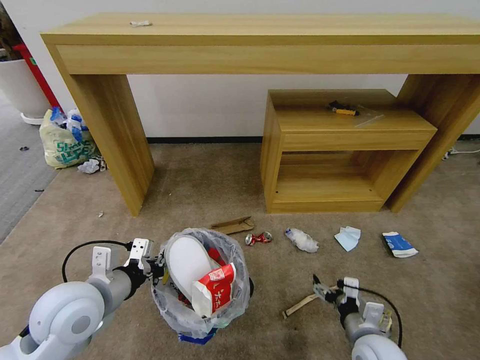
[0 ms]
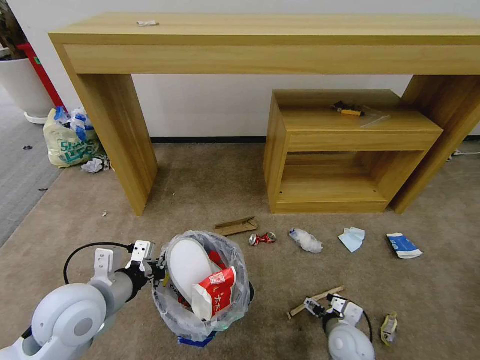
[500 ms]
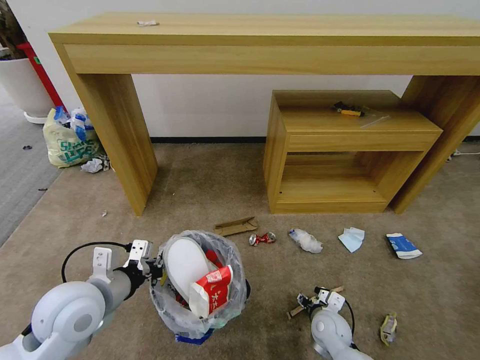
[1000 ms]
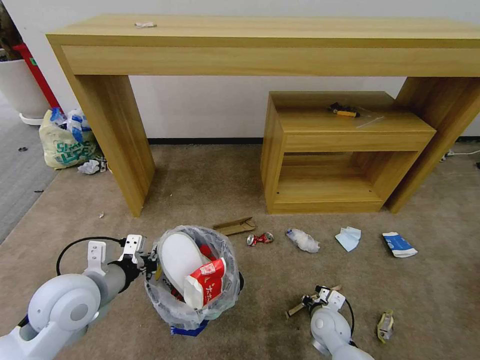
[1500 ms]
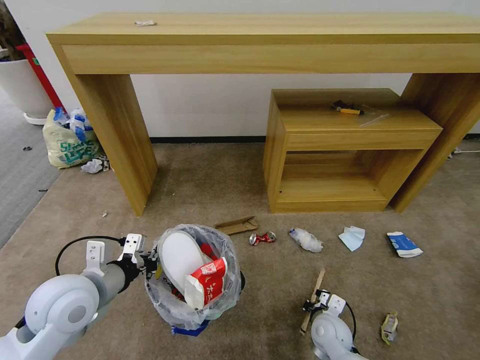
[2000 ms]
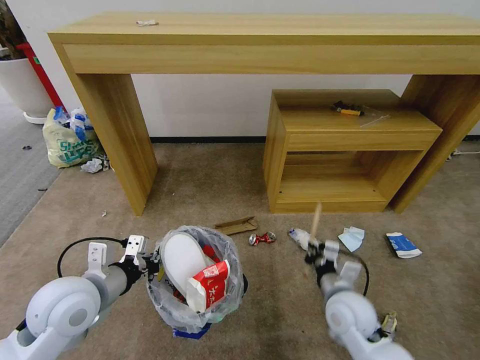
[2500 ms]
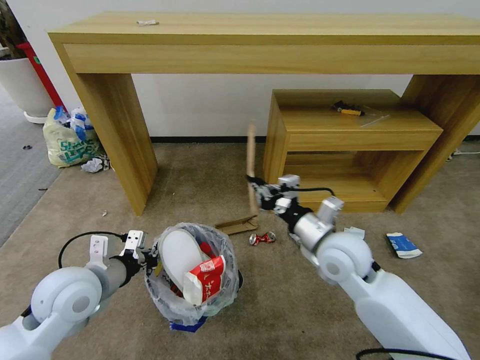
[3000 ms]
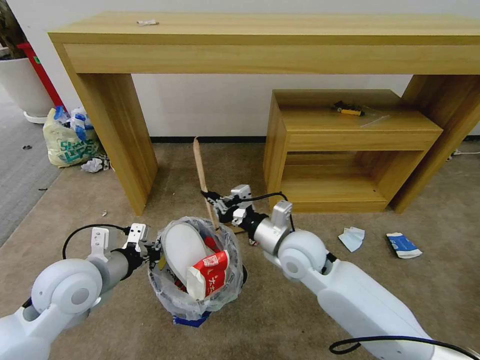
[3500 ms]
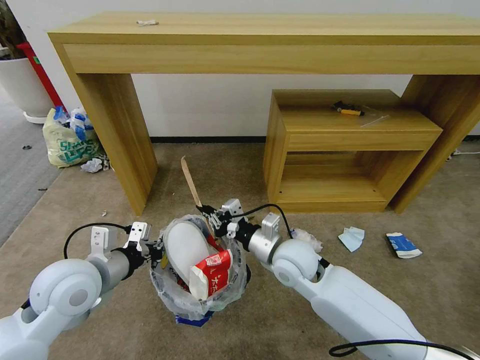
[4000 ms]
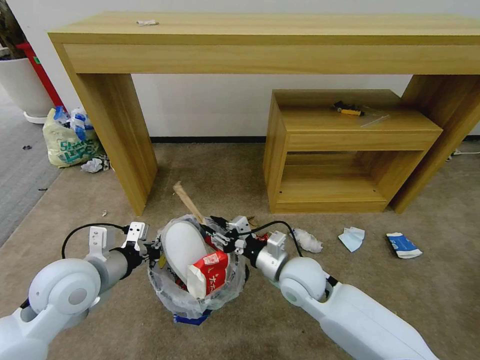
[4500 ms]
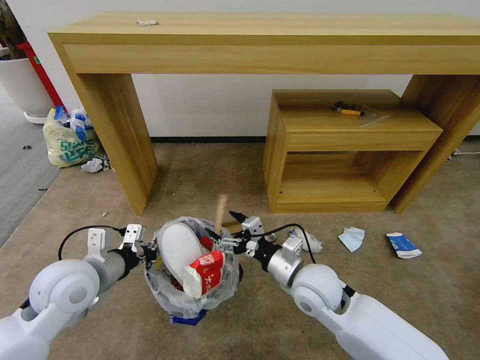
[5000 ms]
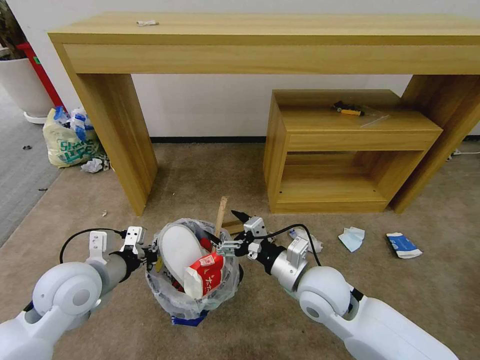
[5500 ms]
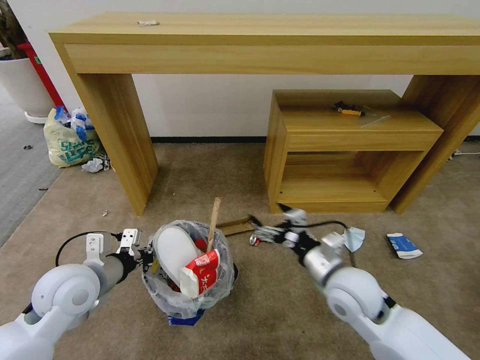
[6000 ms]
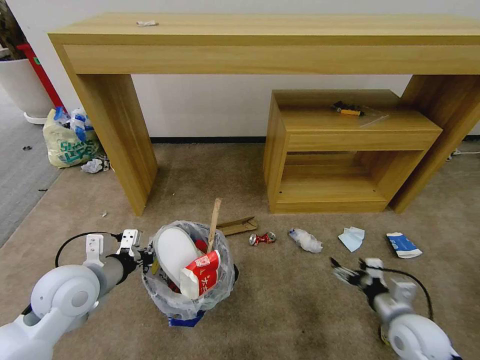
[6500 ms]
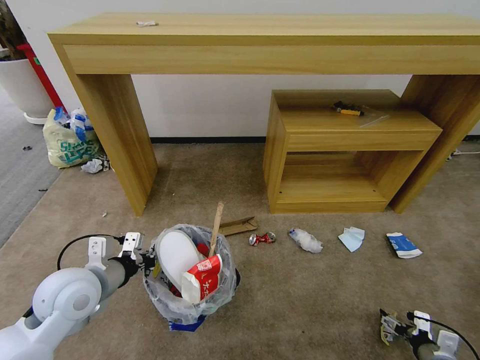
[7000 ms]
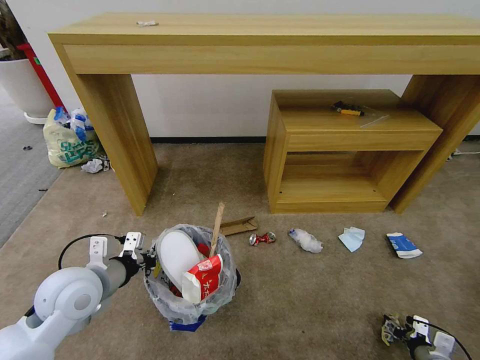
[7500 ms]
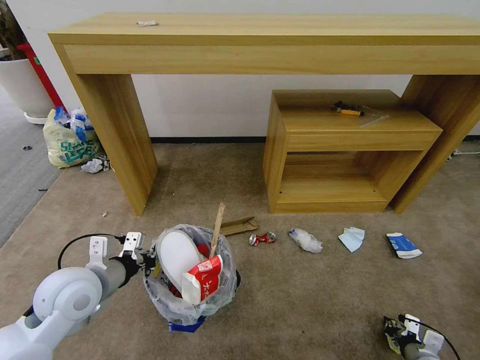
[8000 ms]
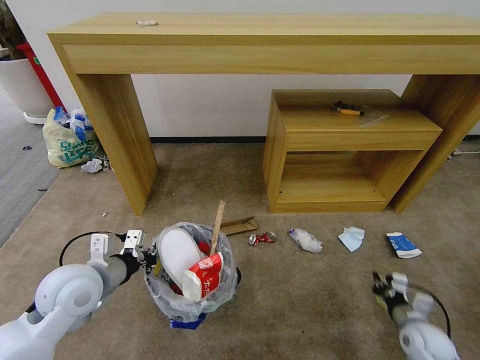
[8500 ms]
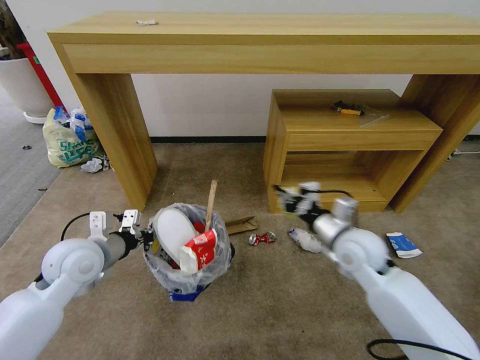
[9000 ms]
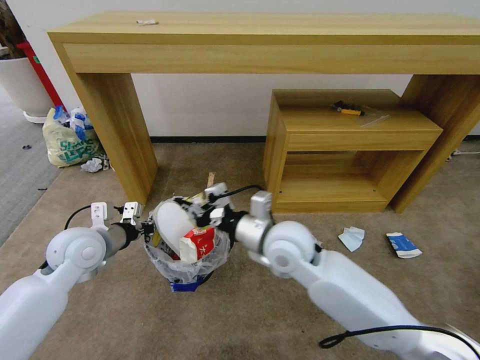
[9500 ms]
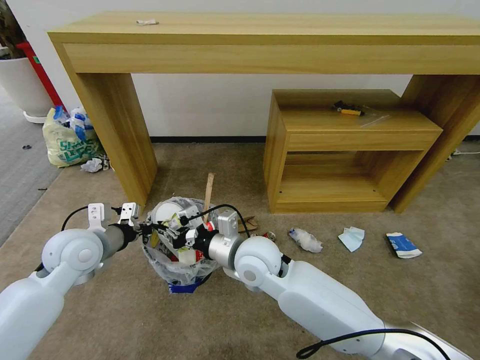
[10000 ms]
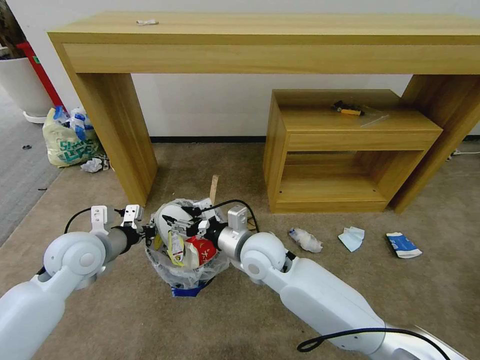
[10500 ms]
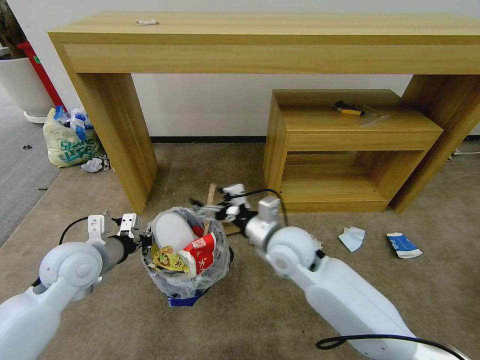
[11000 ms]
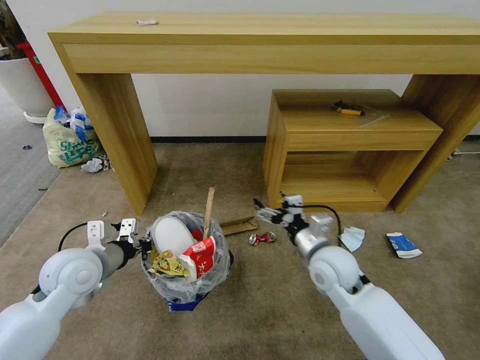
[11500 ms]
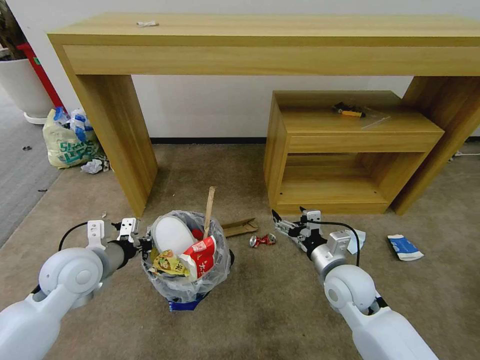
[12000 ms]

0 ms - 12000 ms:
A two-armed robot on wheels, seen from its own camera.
Task of the whole recording: Pick up the trash bin and place the garbage on the floor into it.
0 ms - 2000 ms: The right gripper travels downward, forward and to the left by roughly 15 cm, and closes.
2000 ms - 4000 ms: The right gripper goes about 25 cm upward and to the left.
4000 ms - 6000 ms: The right gripper shifts roughly 10 cm to the right and backward, and opens.
6000 ms - 8000 ms: The right gripper travels to the right and downward by some 40 cm, and closes its fingers.
8000 ms - 10000 ms: The left gripper moves forward, some 10 cm, while the right gripper goes roughly 50 cm to the left and upward.
10000 ms - 12000 ms: The right gripper moves to the right, about 20 cm, and opens.

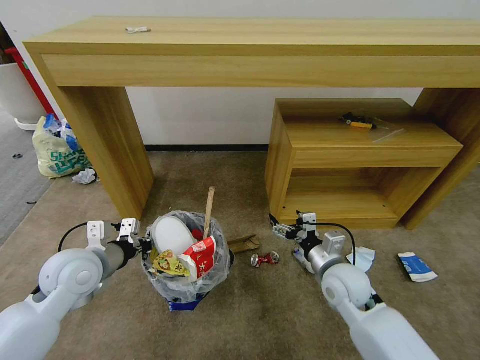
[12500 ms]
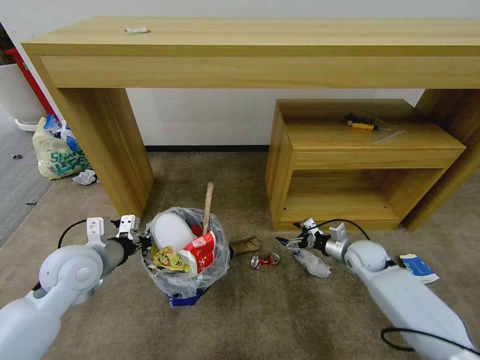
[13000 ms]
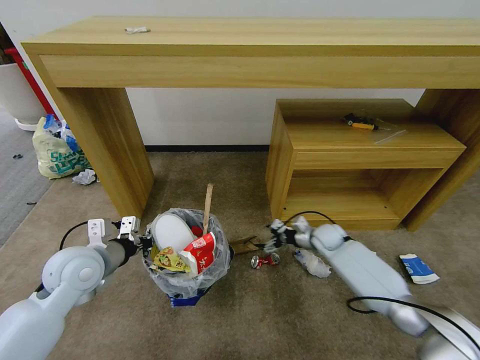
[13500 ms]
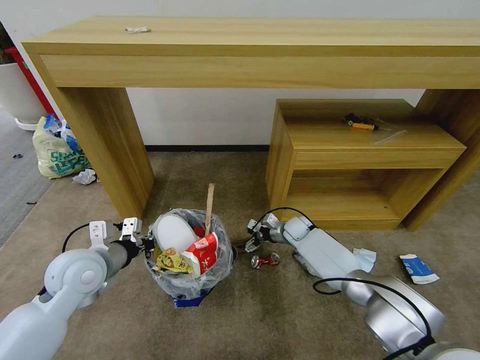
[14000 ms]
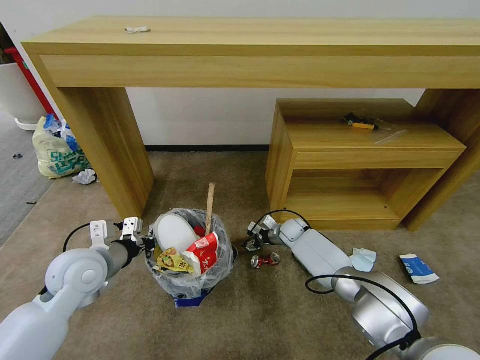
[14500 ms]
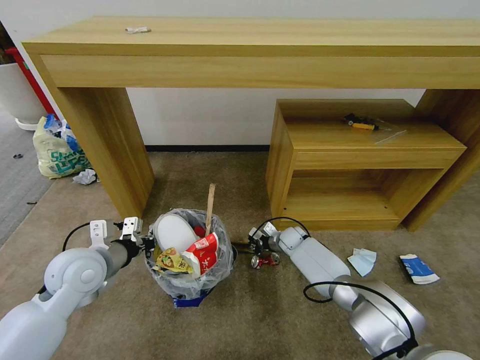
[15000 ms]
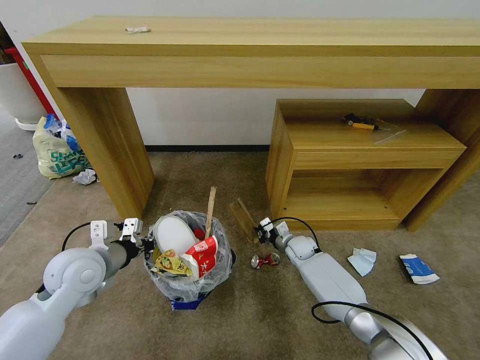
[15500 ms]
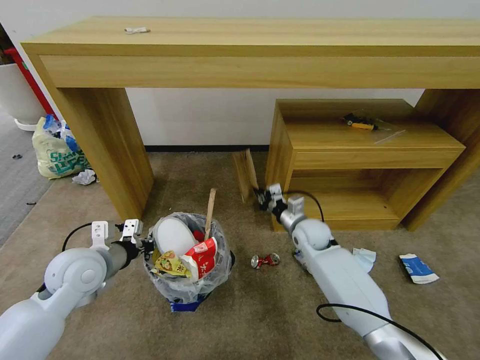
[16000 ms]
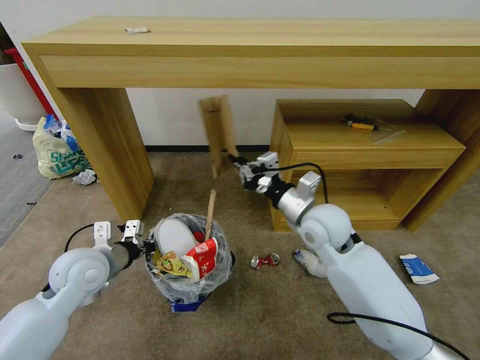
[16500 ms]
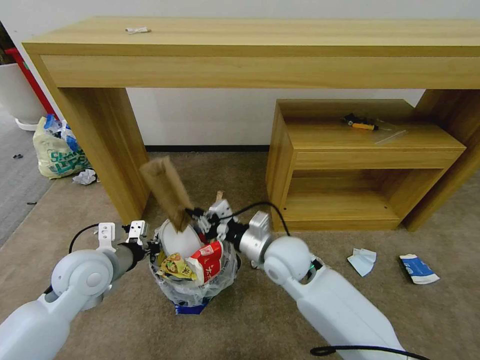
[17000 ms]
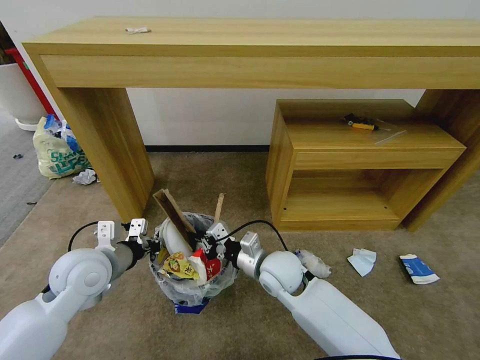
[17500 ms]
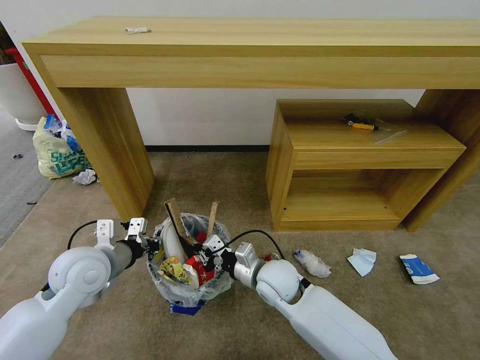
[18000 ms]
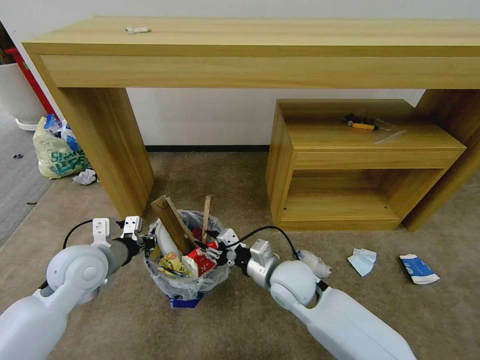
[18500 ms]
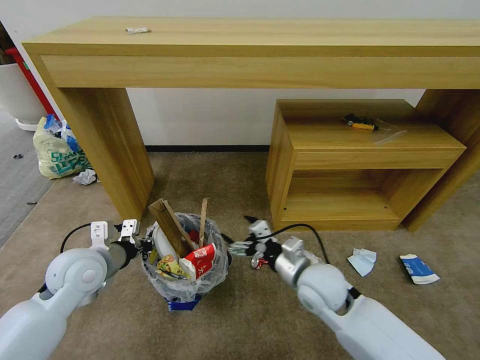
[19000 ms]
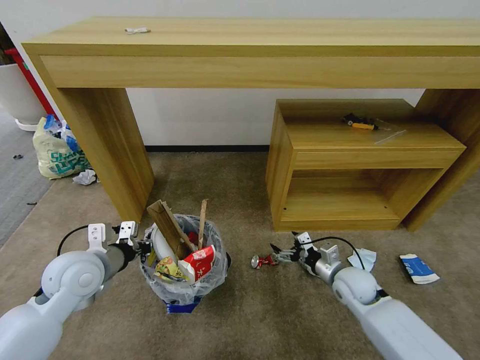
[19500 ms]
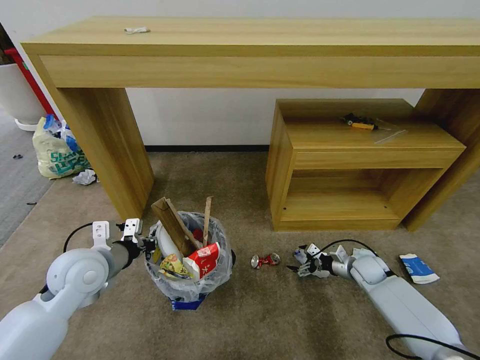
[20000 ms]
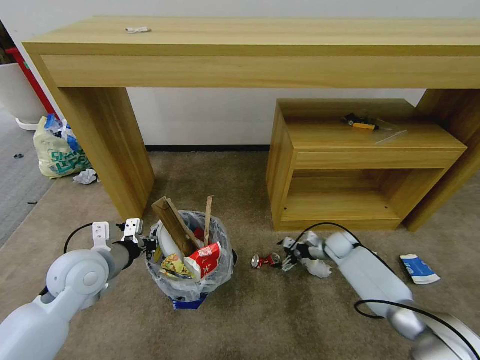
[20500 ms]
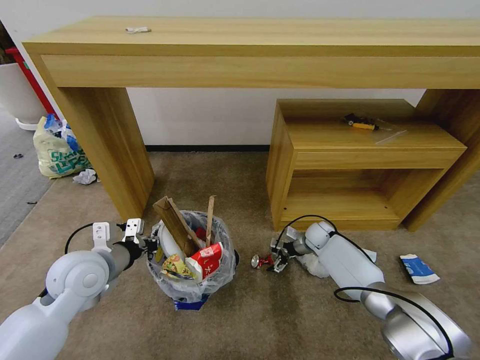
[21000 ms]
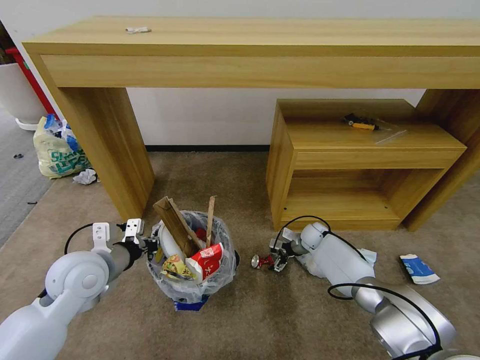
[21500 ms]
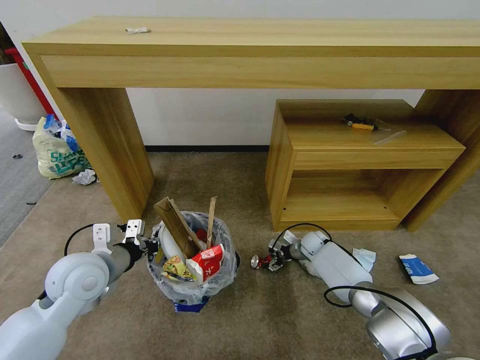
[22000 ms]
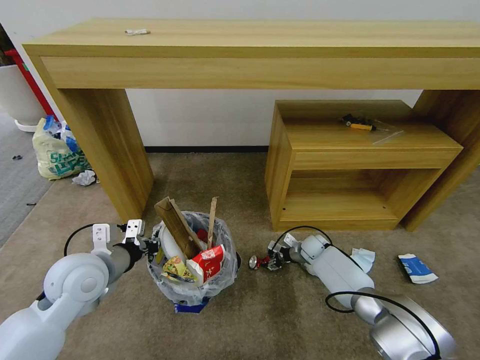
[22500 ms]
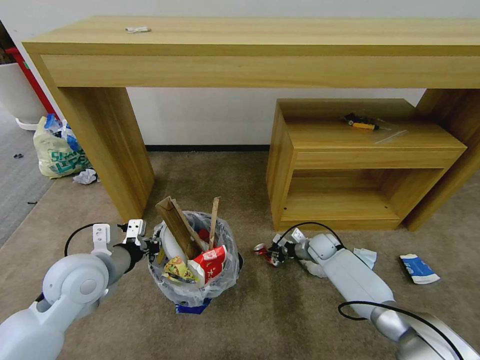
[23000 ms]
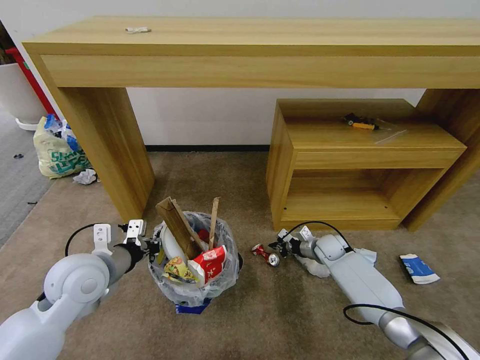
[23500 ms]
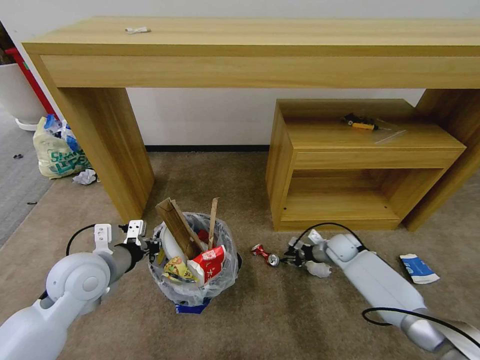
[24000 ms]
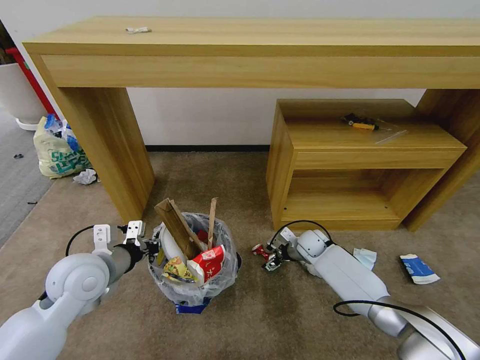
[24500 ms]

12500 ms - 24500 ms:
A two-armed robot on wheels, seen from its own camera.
Task of the whole recording: Pick up the trash bin and place the garbage on the floor into it.
12500 ms - 14500 ms: The right gripper goes about 25 cm forward and downward, and closes its fingers.
14500 ms - 16500 ms: The right gripper is displaced upward and backward by roughly 30 cm, and closes.
16500 ms - 18500 ms: The right gripper moves downward, backward and to the left, about 15 cm, and opens its fingers.
18500 ms - 20500 ms: The right gripper travels to the right, forward and downward by about 35 cm, and opens.
20500 ms - 22500 ms: The right gripper travels to the left by roughly 10 cm, and closes its fingers.
22500 ms - 24500 ms: The right gripper heads upward, covering approximately 5 cm, reaches some 5 cm to the right, then returns, and closes and opens again.

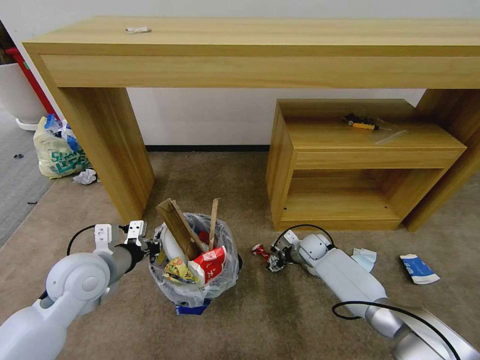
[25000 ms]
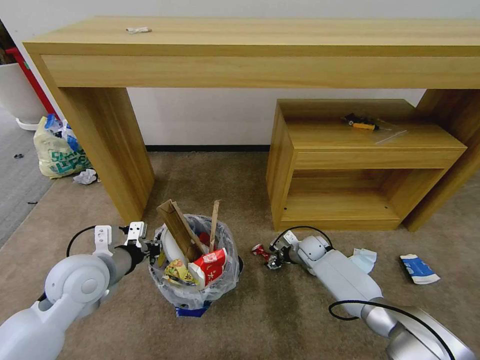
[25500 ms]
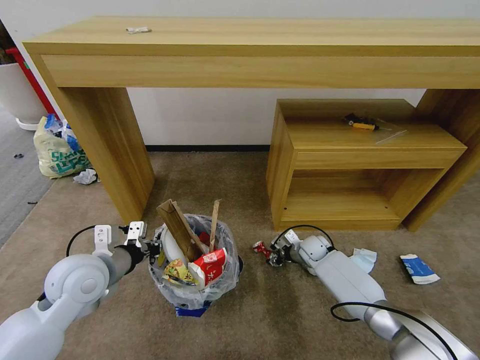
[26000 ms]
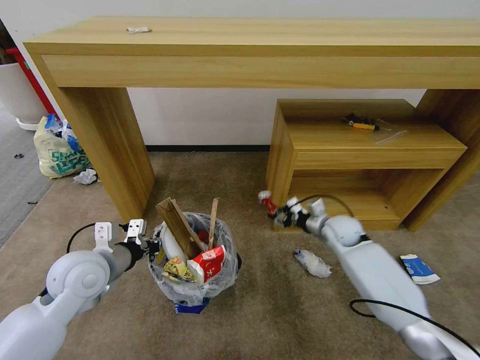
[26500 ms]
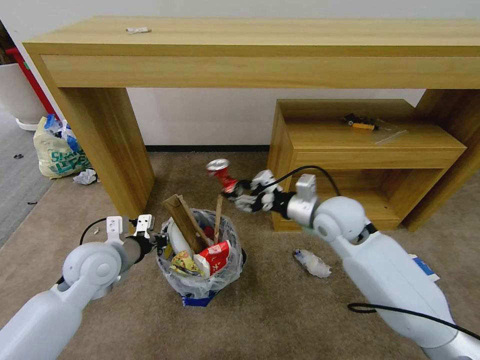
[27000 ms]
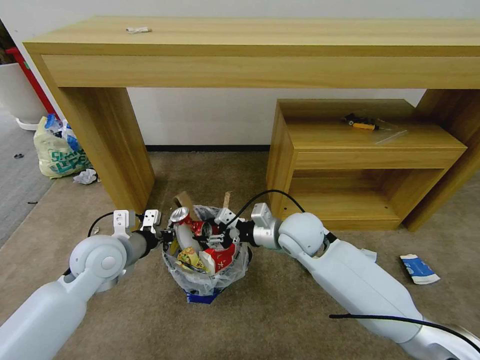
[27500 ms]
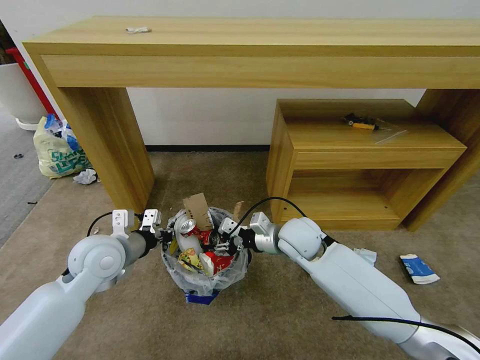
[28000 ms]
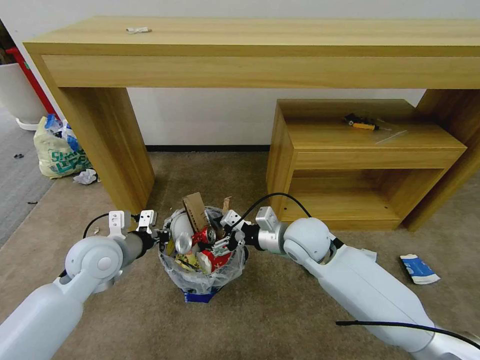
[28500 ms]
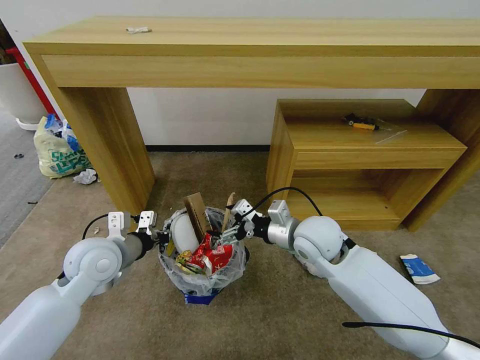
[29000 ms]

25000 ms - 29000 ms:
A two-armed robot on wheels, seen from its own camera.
Task of the whole recording: Pick up the trash bin and place the garbage on the floor into it.
25000 ms - 27000 ms: The right gripper moves upward, about 25 cm, and closes its fingers.
27000 ms - 29000 ms: The right gripper opens its fingers.
